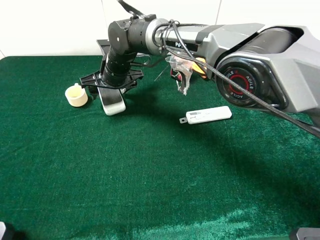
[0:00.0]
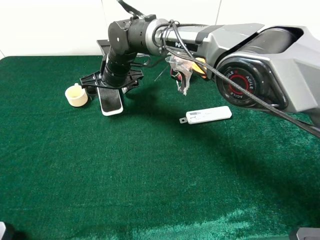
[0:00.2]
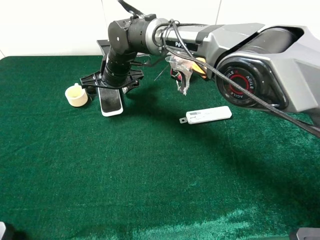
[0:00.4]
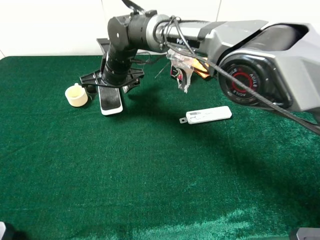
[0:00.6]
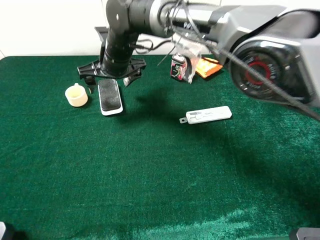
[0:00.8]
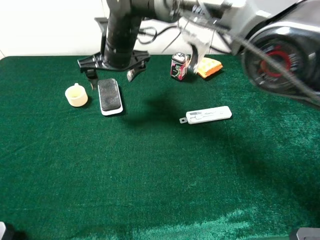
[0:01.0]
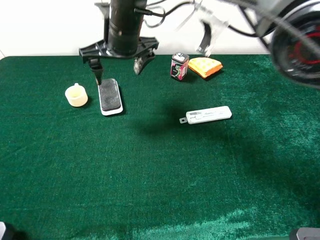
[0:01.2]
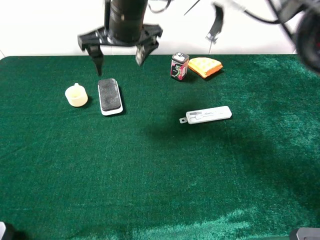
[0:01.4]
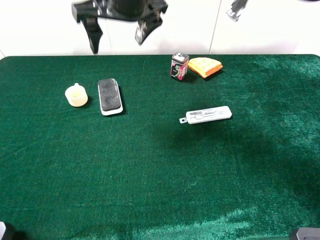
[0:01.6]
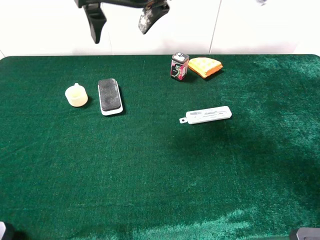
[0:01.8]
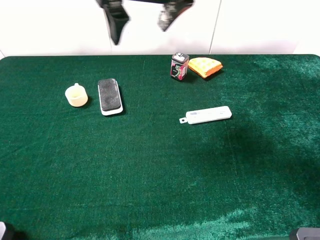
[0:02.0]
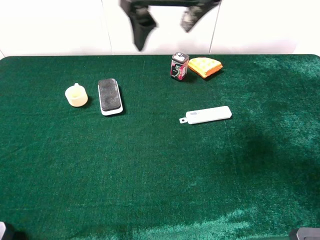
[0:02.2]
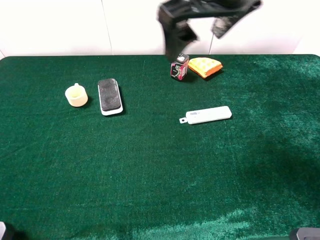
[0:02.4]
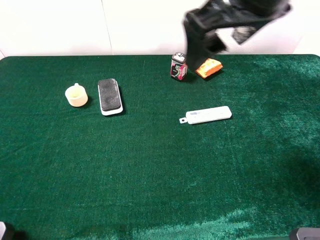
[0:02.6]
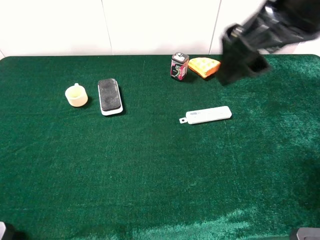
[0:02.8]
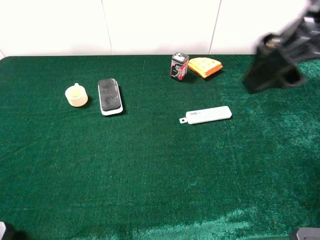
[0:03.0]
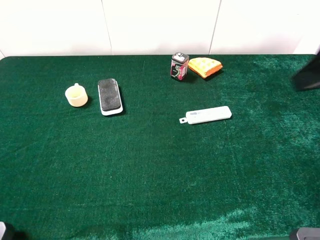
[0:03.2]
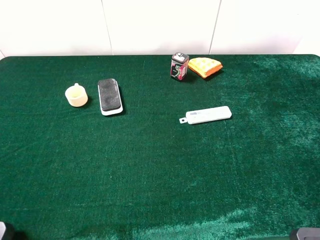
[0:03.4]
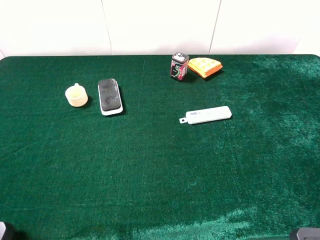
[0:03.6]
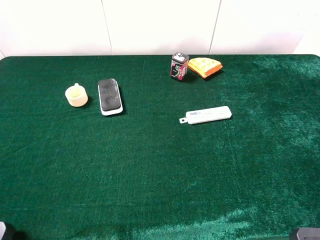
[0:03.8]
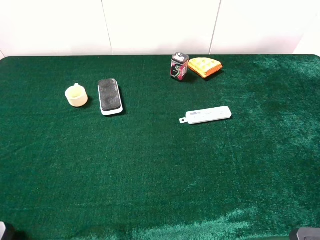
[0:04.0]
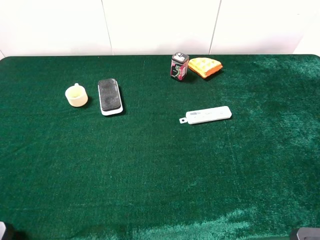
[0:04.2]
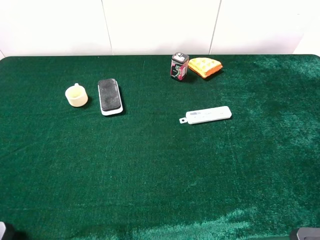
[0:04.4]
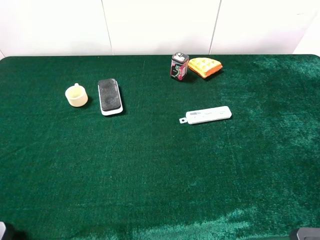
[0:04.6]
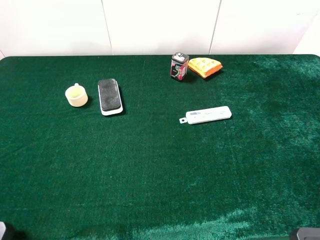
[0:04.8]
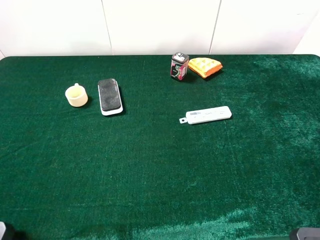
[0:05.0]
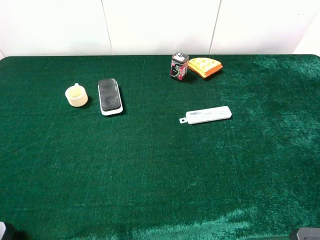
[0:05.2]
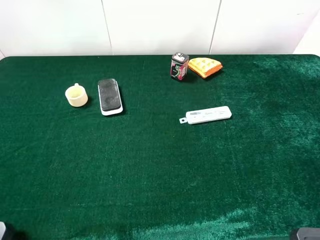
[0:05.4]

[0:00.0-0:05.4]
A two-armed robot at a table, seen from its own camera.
Task of the whole recording: the gripper move the object.
0:00.0 to 0:01.4: The right gripper shifts about 15 cm upward.
0:01.4 to 0:02.8: The right gripper travels to the right, backward and upward by roughly 30 cm.
0:02.8 to 0:04.0: The right gripper is displaced to the right and backward by some 25 cm.
0:04.0 to 0:05.4: The two grippers keep their place.
